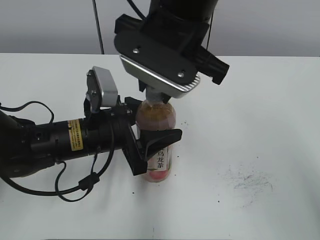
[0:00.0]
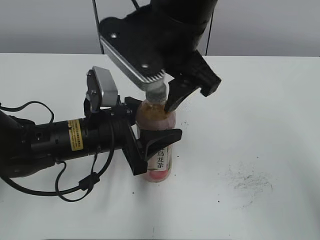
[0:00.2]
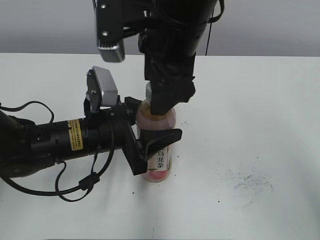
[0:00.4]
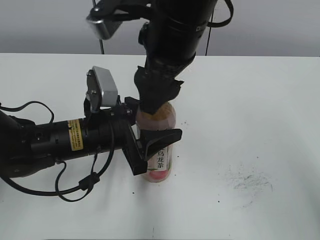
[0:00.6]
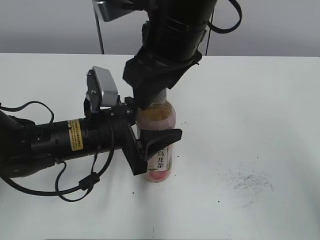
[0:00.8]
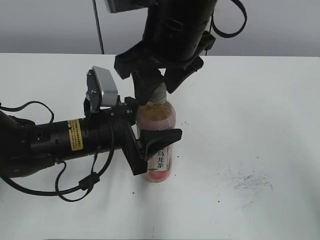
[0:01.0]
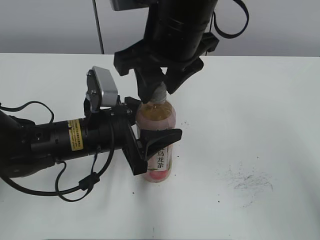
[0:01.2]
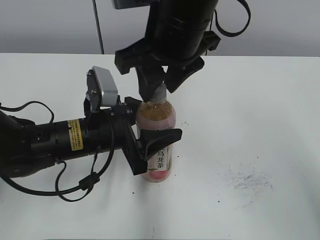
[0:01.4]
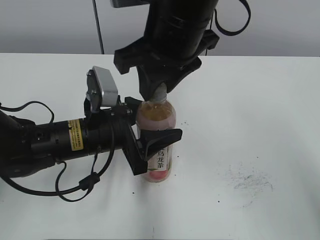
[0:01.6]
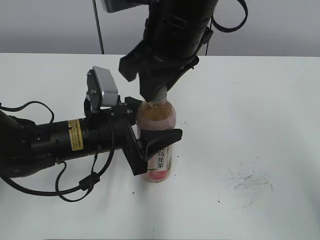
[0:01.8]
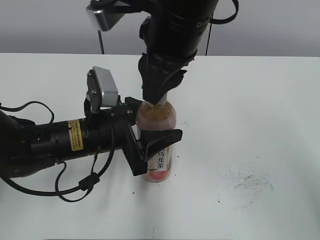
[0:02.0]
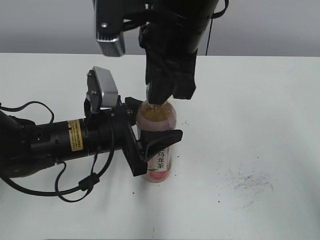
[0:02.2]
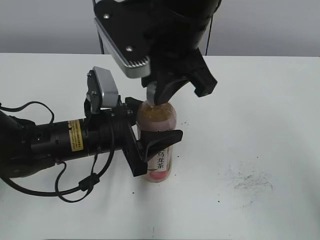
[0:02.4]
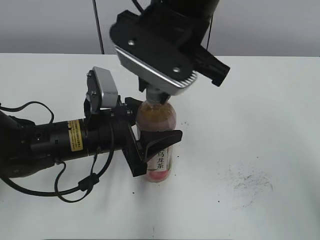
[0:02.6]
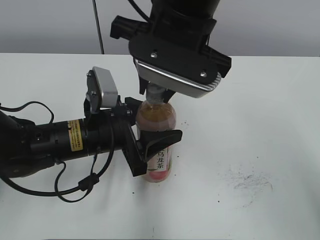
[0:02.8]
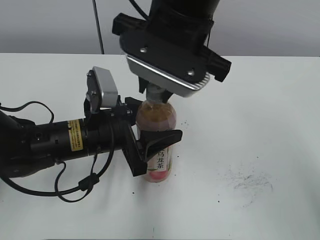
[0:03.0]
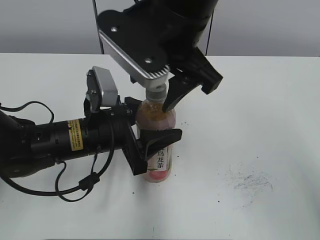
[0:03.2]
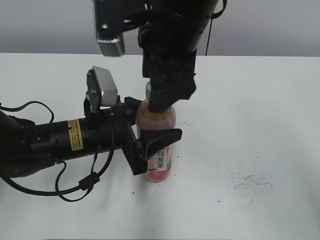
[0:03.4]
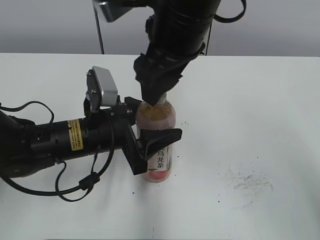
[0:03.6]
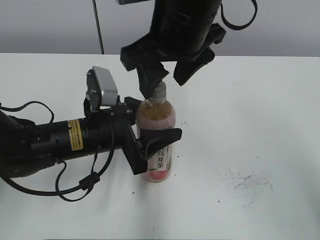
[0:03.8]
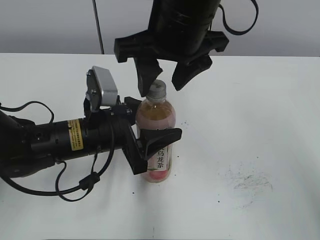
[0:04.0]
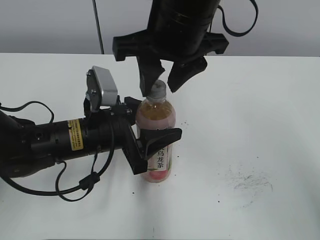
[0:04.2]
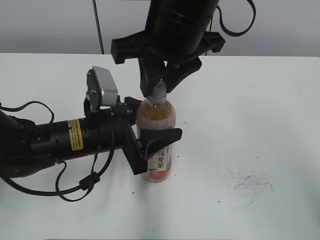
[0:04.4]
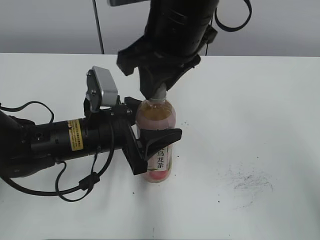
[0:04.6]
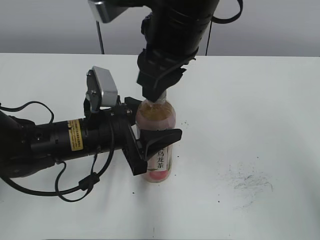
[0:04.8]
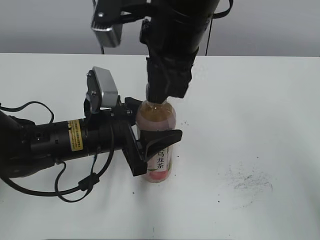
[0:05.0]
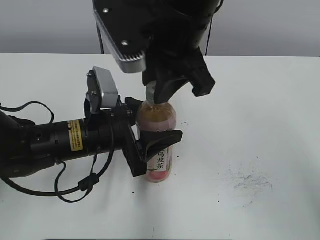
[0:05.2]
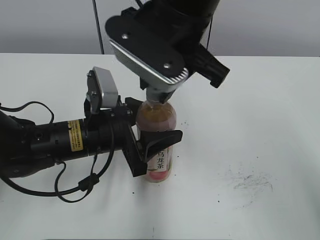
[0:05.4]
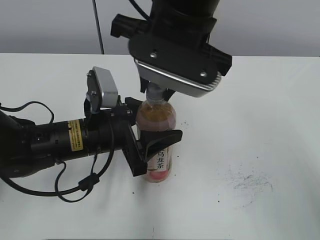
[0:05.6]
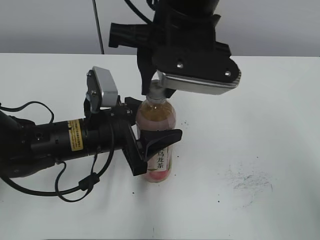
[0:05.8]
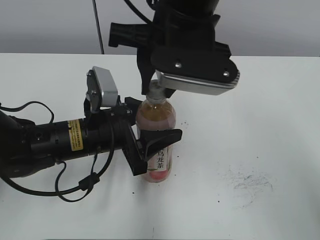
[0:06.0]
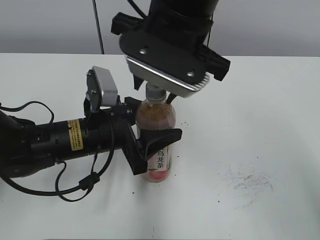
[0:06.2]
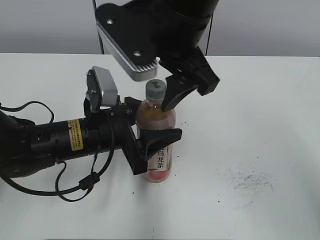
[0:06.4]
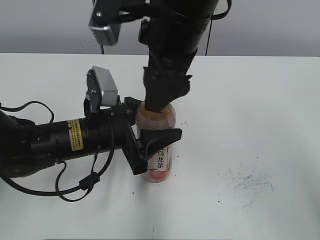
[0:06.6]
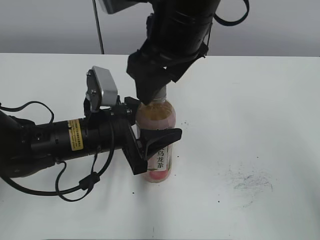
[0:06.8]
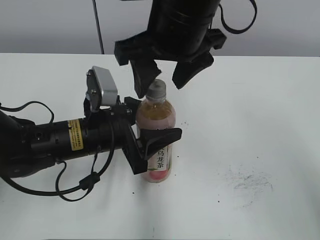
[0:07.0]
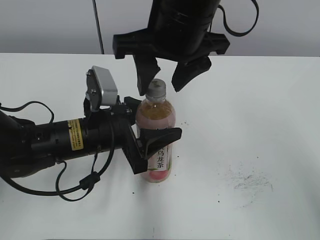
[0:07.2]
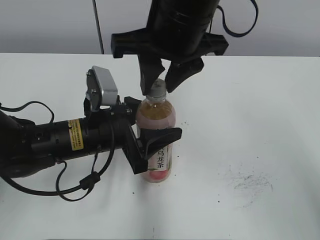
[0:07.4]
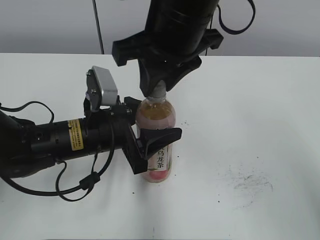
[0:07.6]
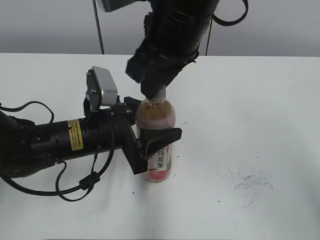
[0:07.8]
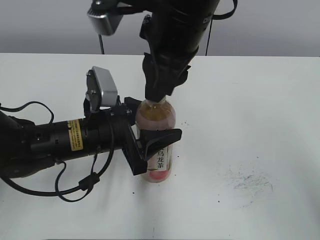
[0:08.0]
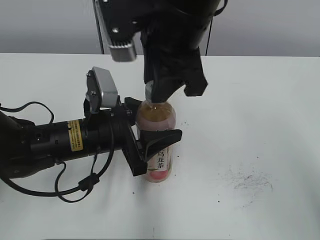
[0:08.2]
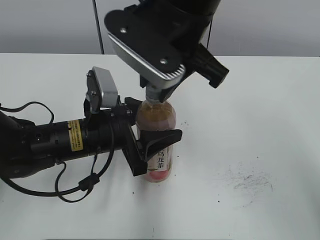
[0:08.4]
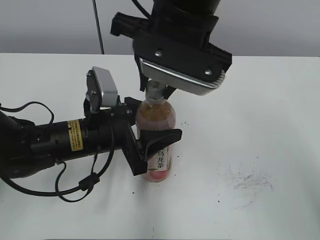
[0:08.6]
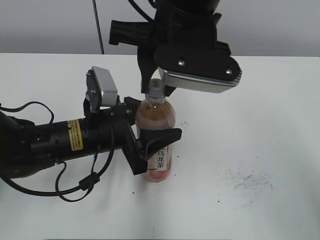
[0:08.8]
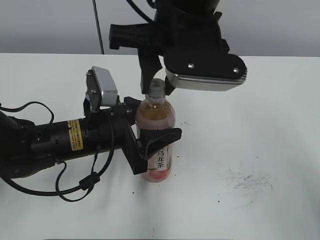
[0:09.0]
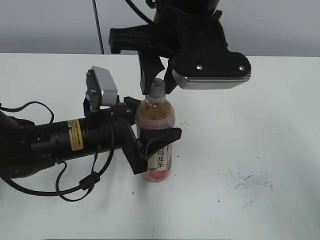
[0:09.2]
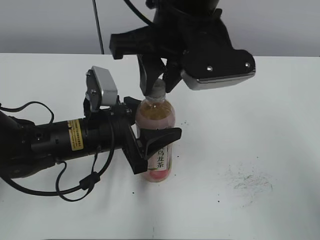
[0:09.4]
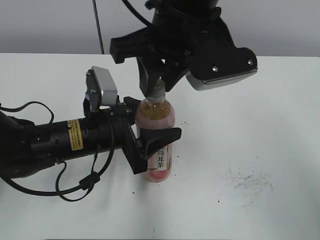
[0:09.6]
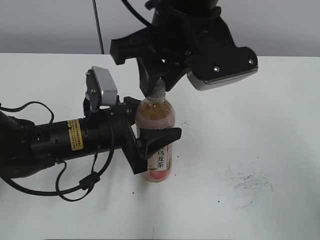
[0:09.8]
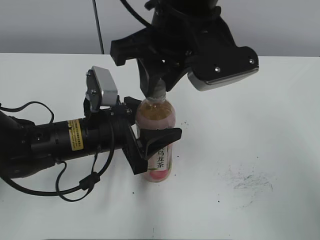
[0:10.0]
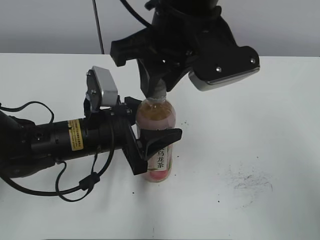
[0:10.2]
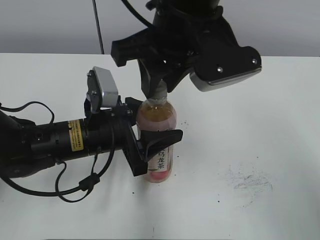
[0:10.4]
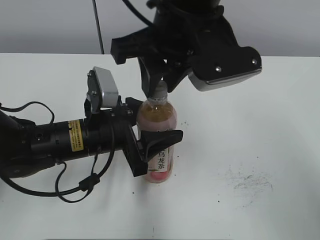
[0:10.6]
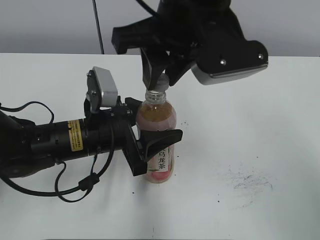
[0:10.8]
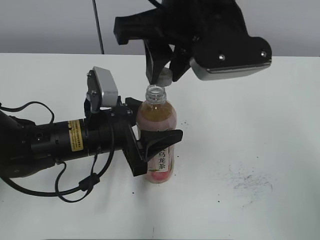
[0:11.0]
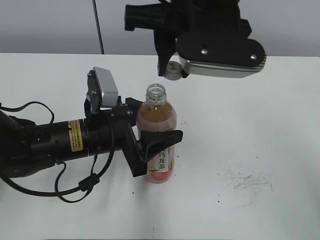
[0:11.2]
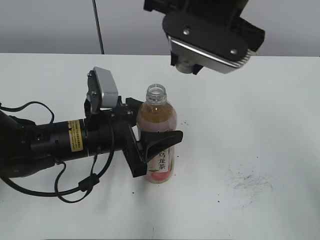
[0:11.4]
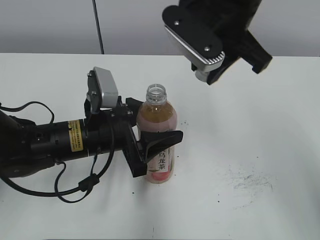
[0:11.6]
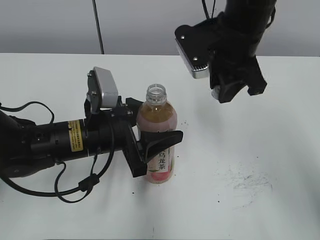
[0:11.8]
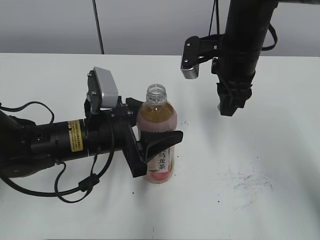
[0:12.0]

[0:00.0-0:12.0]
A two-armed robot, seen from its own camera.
0:00.0 to 0:01.6: The right gripper opens and closes again.
0:03.0 to 0:04.4: The right gripper opens, then closes again.
0:06.0 to 0:07.6: The right gripper opens, then closes once more.
0:10.4 to 0:12.0: The right gripper shifts roughly 15 cm to the right, downward and forward.

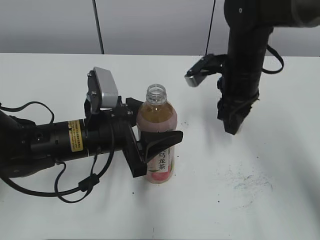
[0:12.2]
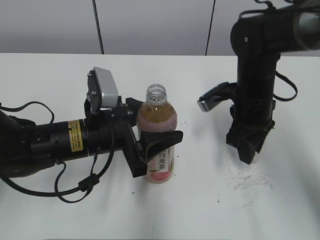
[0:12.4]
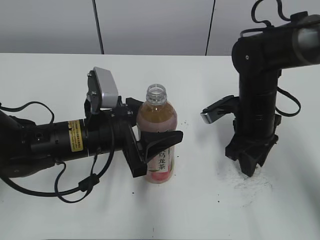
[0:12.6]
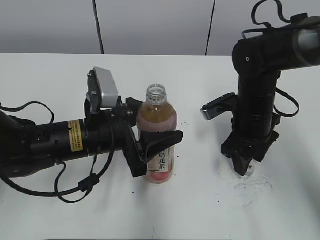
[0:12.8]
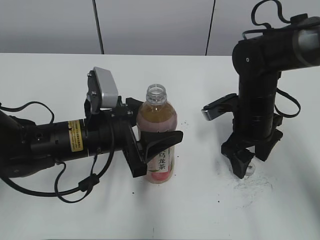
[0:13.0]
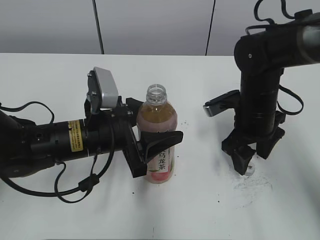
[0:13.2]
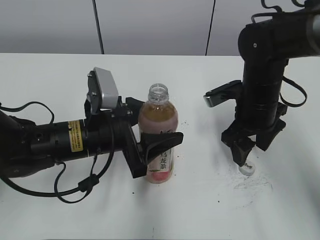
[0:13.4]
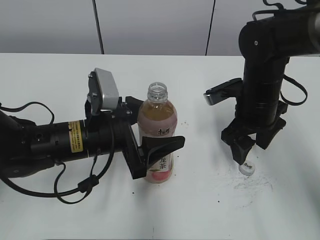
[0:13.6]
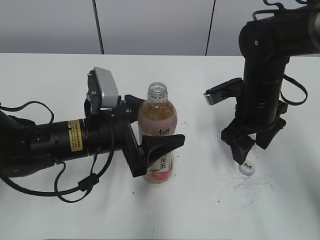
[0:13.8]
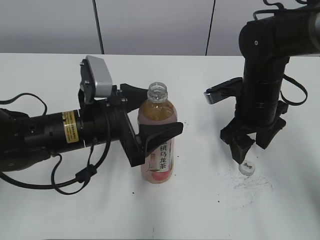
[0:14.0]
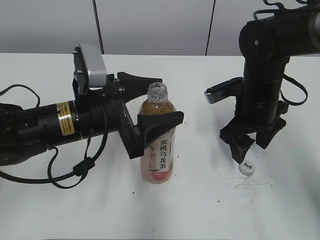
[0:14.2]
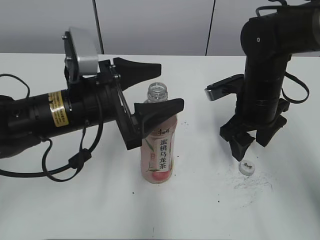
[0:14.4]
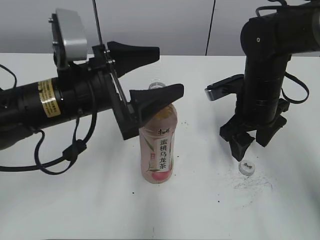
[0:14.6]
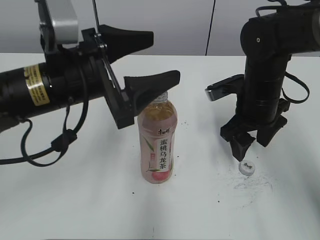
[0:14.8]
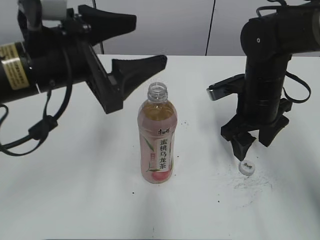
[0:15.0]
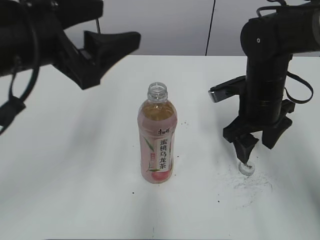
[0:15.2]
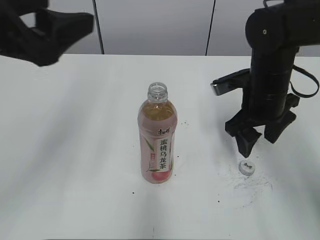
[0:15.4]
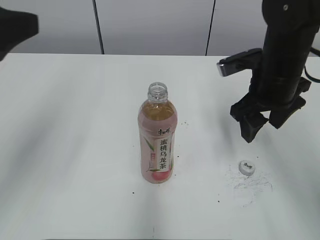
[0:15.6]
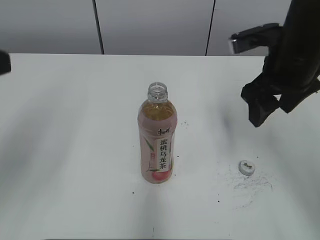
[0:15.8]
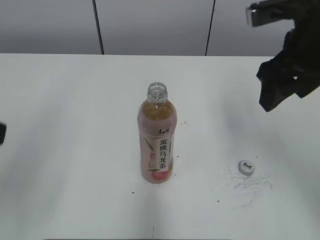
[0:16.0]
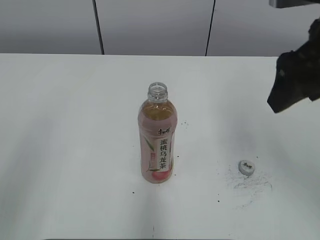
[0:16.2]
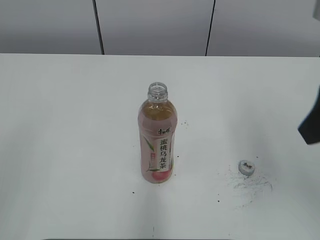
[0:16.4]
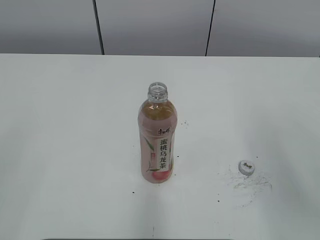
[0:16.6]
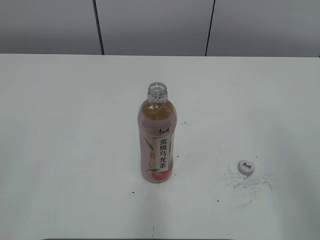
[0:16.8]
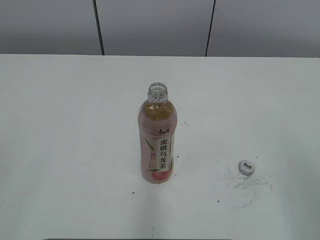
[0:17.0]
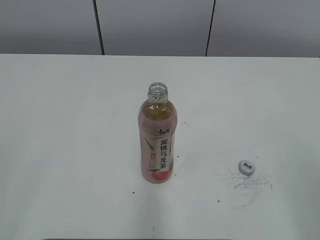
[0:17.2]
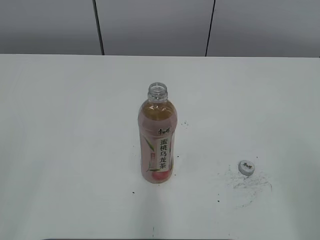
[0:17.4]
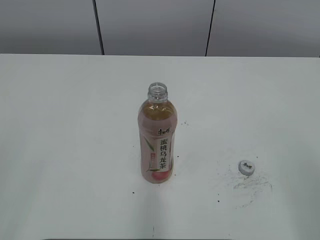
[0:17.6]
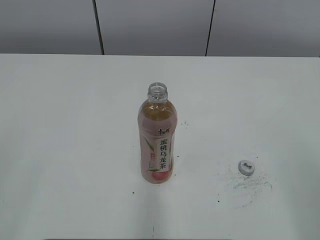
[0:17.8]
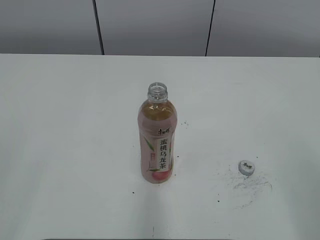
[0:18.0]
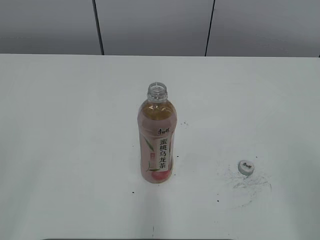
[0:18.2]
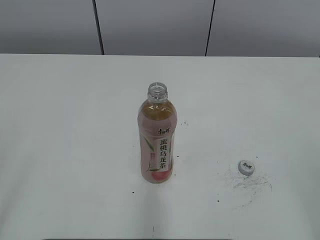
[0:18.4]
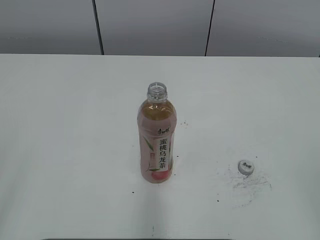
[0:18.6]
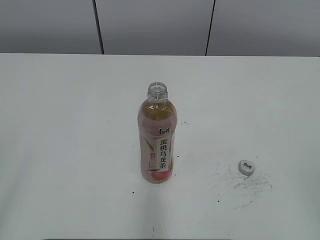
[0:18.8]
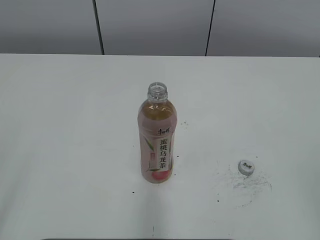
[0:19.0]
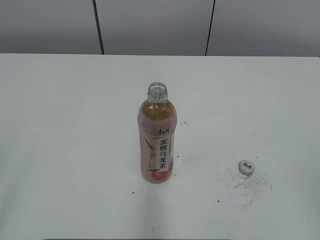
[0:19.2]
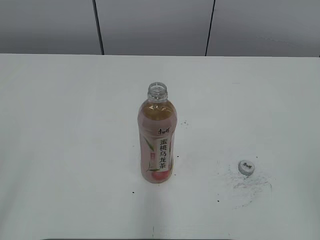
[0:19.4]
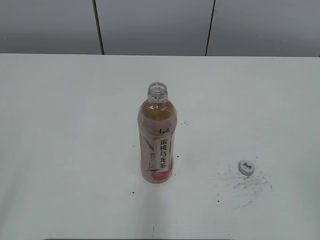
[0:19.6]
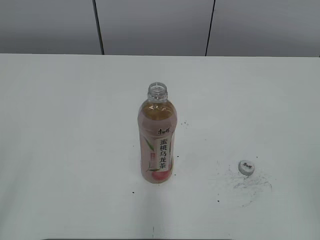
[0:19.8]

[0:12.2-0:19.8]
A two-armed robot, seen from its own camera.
0:12.2 to 0:13.8: The left gripper opens its fingers, while the right gripper changes place by some 5 cm, and opens.
0:13.8 to 0:15.2: The left gripper goes roughly 15 cm upward.
0:15.2 to 0:16.8: The left gripper travels backward and to the left by about 30 cm, and closes its fingers. The right gripper moves backward and upward, about 30 cm.

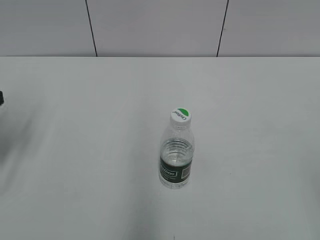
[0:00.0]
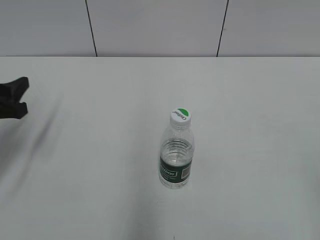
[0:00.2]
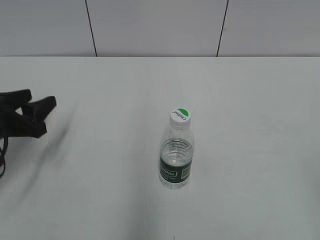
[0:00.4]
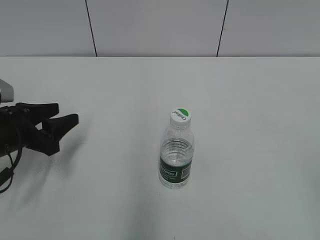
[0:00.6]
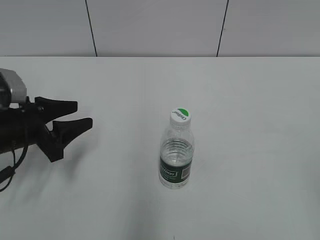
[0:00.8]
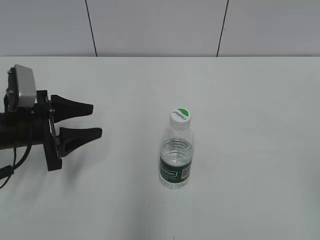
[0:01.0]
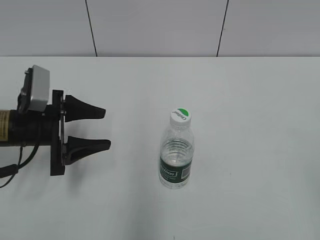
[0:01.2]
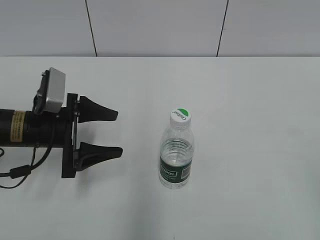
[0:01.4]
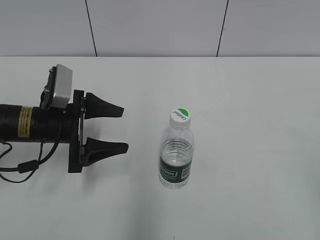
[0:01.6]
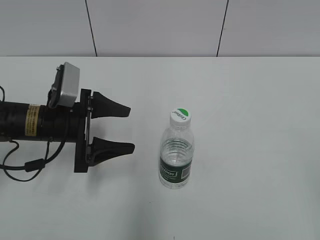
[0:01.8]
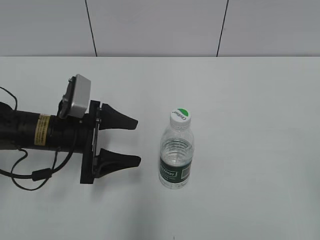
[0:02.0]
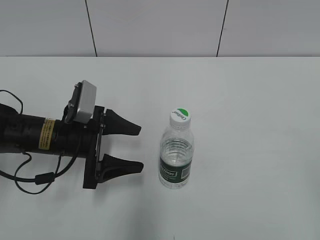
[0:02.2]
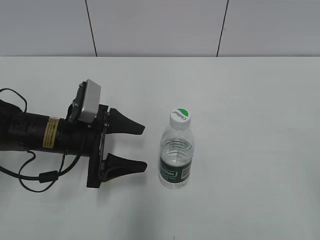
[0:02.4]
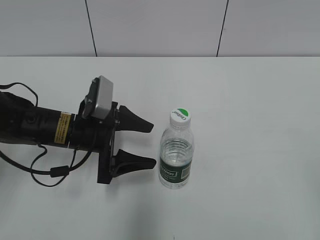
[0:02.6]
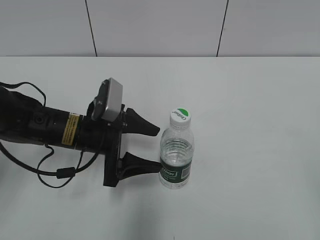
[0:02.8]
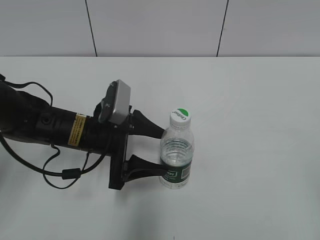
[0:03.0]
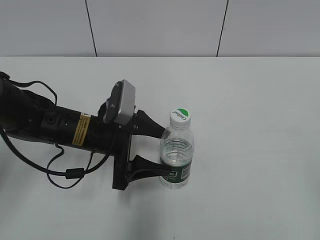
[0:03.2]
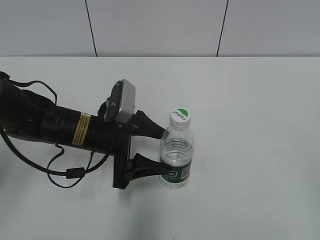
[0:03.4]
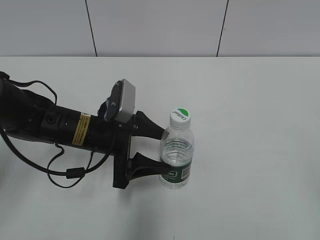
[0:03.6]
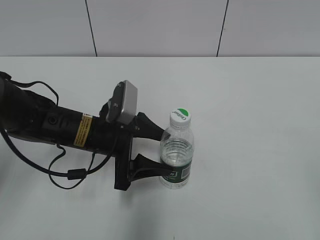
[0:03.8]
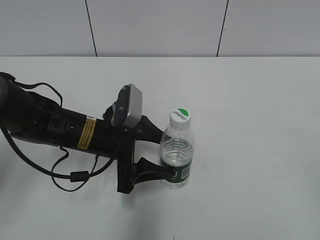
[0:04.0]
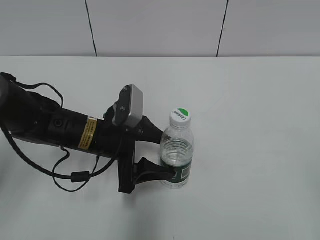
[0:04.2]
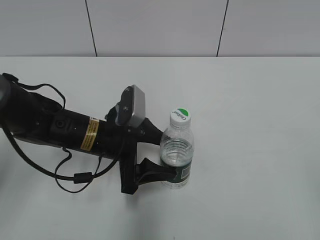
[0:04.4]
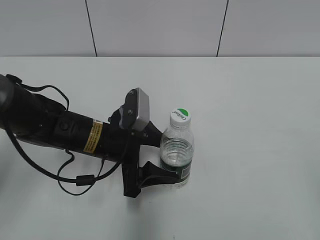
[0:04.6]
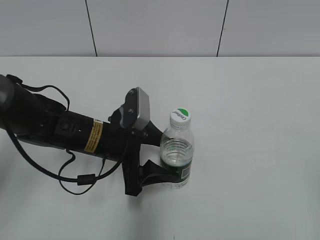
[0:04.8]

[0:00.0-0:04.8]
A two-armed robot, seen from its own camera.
0:00.0 to 0:01.6: The left gripper moves to the right and downward, approximately 15 cm, and opens its fingers.
0:01.6 to 0:03.2: The left gripper heads to the right, covering approximately 10 cm.
0:03.2 to 0:04.8: The grippers make only small movements.
